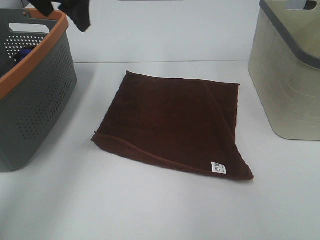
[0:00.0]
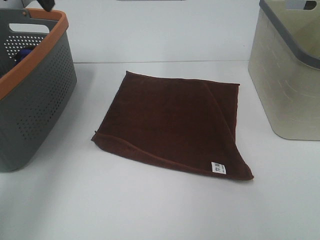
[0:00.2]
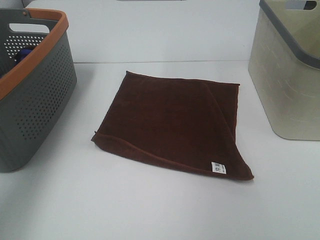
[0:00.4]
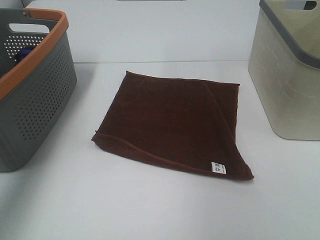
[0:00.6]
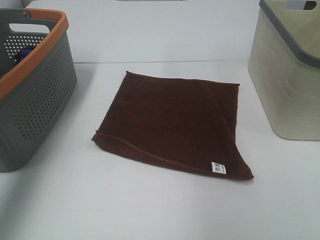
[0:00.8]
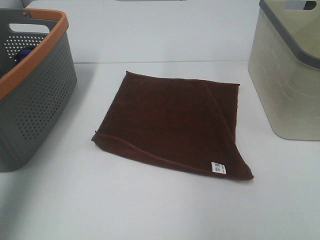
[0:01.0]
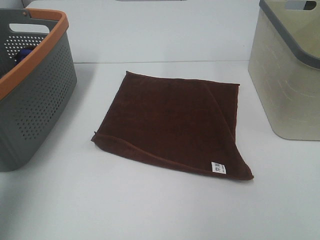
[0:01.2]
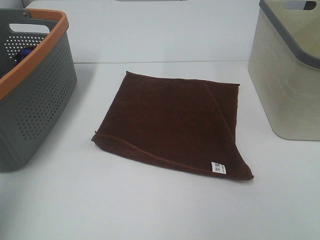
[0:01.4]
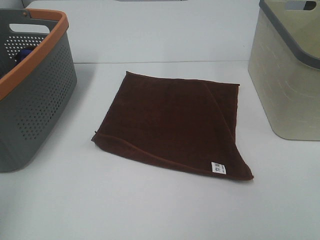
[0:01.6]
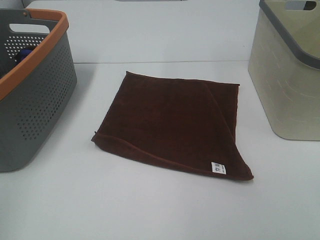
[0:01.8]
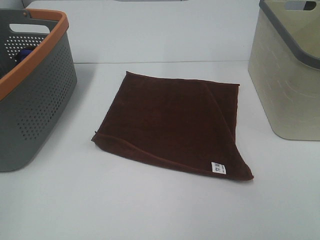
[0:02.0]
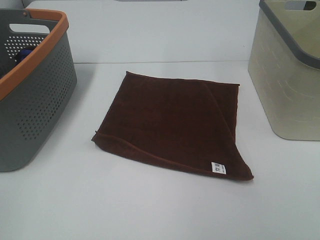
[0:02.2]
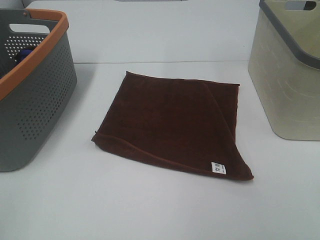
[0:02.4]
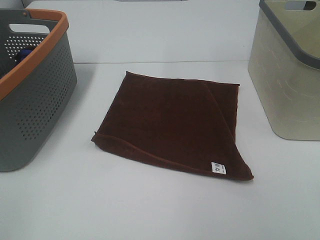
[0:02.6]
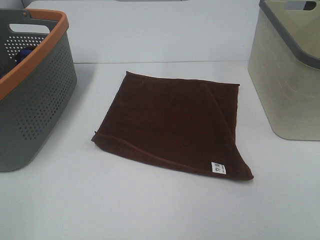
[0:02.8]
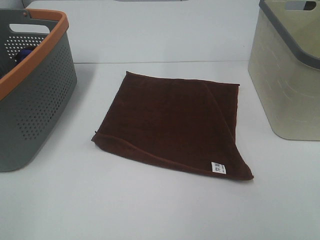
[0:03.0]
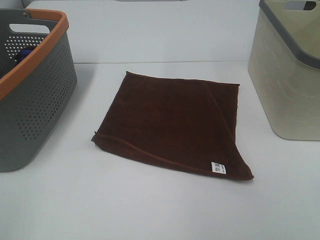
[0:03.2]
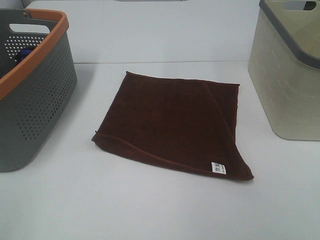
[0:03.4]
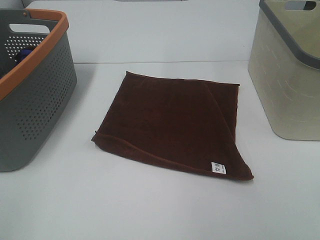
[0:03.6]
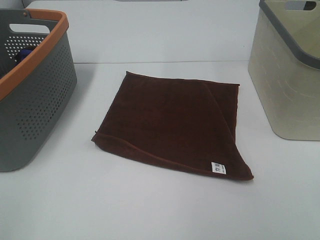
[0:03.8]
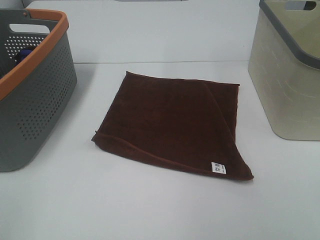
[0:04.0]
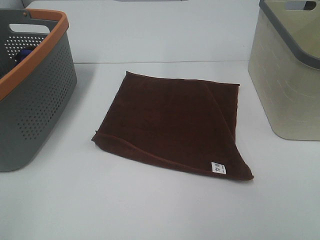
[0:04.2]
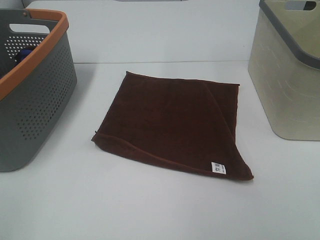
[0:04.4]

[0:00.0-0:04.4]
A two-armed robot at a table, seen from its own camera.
Task of the whole recording: Remove the towel and place it.
0:00.0 to 0:01.4: The left gripper goes about 30 cm backward and to the left.
0:01.4 to 0:03.0: The left gripper travels backward and downward by approximately 15 cm.
0:03.0 to 0:04.4: Both grippers stay about where they are.

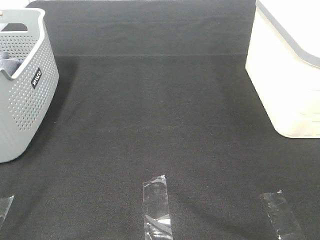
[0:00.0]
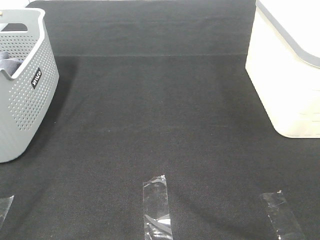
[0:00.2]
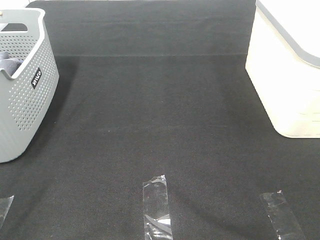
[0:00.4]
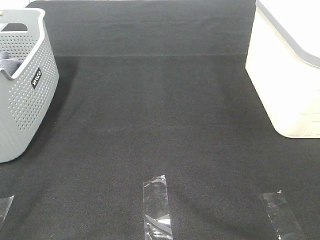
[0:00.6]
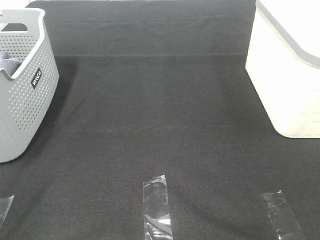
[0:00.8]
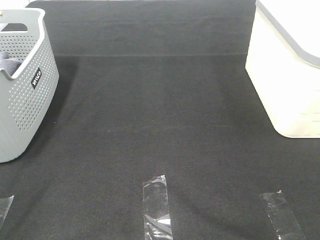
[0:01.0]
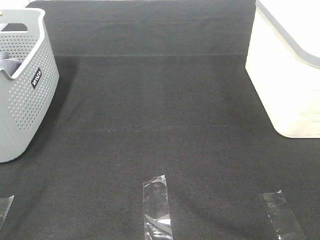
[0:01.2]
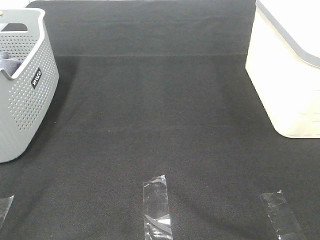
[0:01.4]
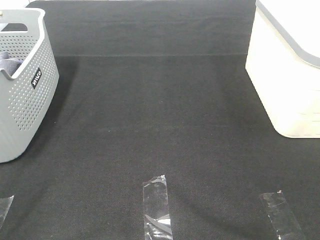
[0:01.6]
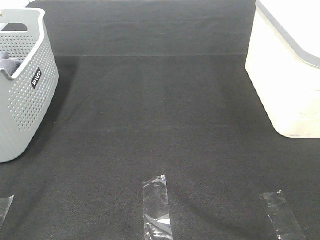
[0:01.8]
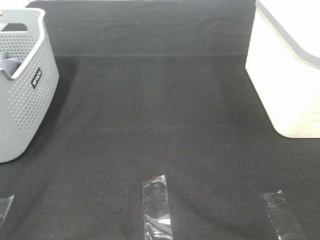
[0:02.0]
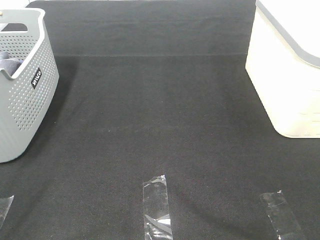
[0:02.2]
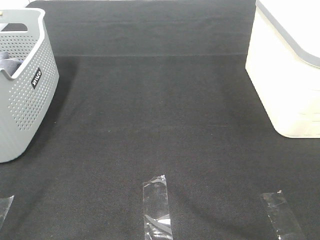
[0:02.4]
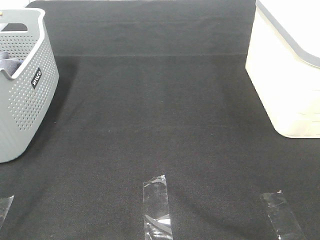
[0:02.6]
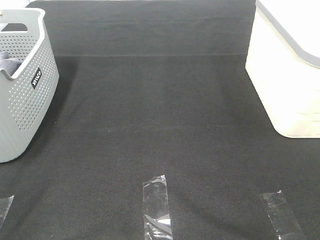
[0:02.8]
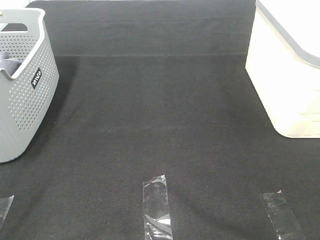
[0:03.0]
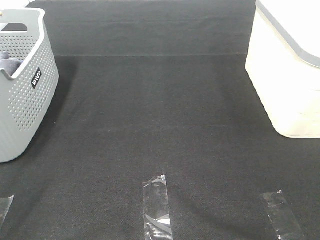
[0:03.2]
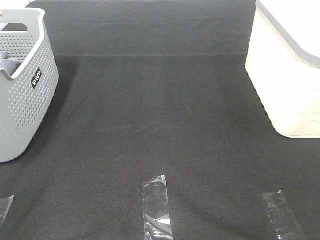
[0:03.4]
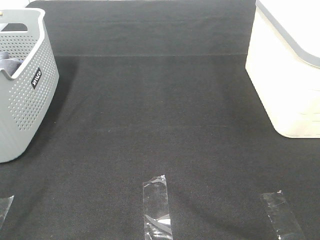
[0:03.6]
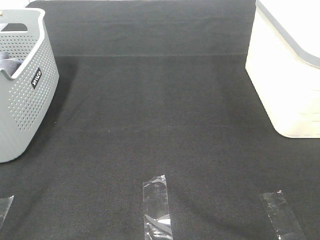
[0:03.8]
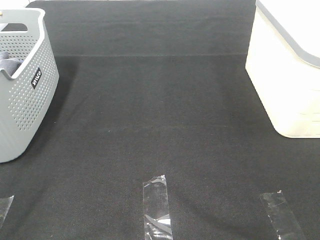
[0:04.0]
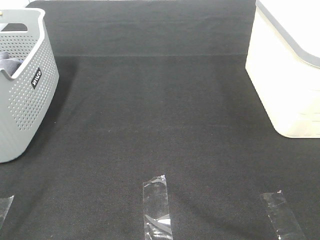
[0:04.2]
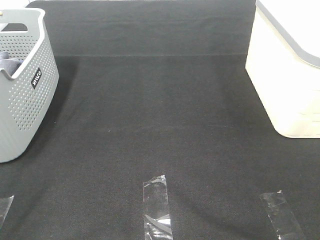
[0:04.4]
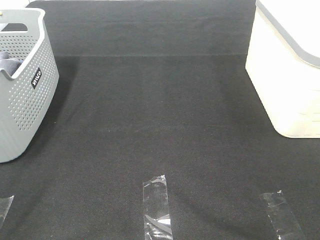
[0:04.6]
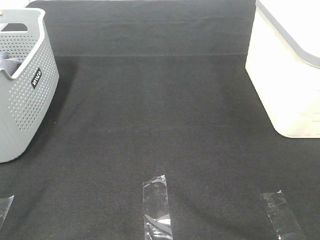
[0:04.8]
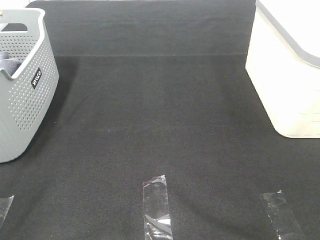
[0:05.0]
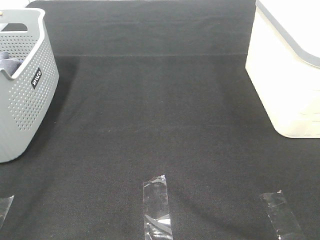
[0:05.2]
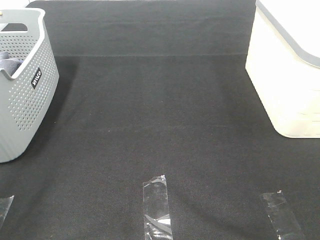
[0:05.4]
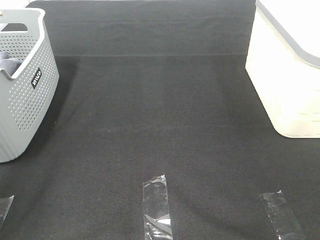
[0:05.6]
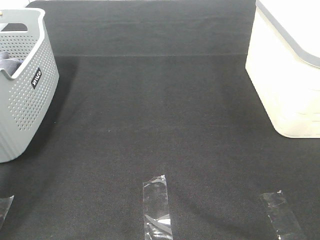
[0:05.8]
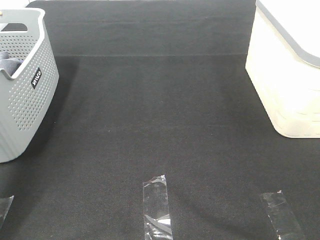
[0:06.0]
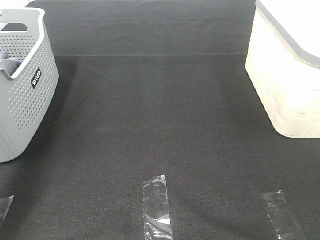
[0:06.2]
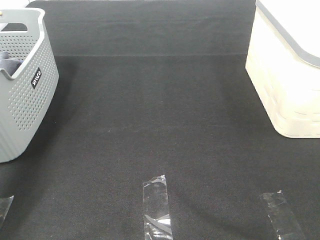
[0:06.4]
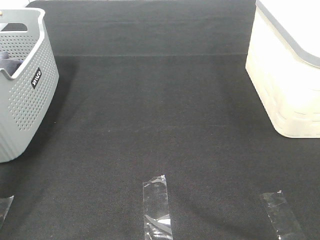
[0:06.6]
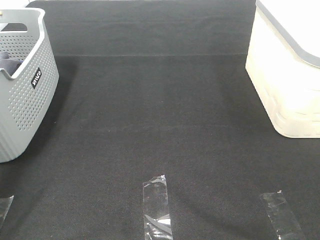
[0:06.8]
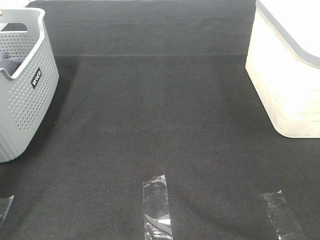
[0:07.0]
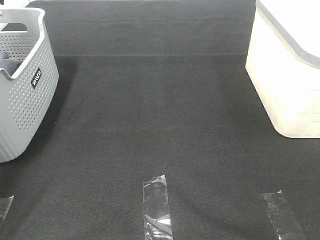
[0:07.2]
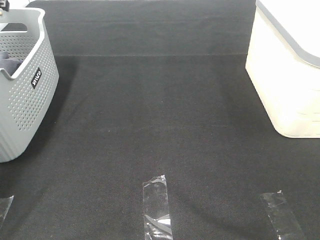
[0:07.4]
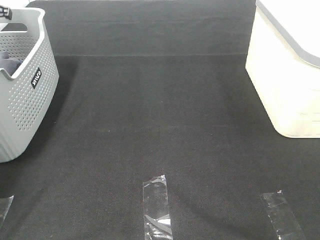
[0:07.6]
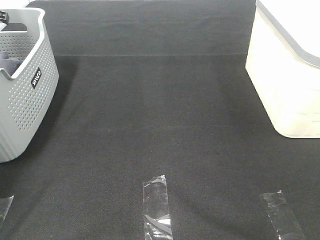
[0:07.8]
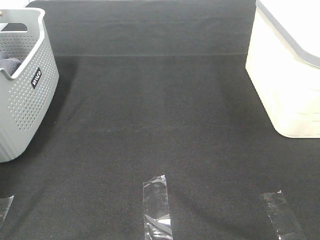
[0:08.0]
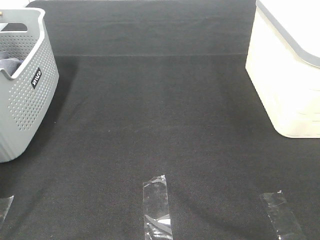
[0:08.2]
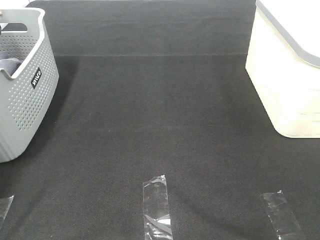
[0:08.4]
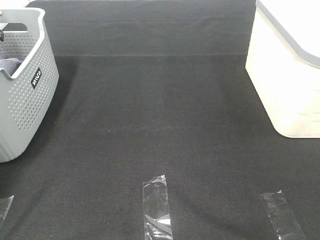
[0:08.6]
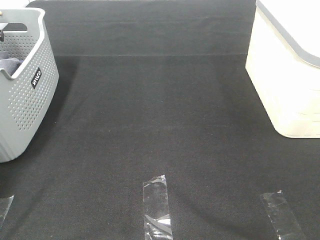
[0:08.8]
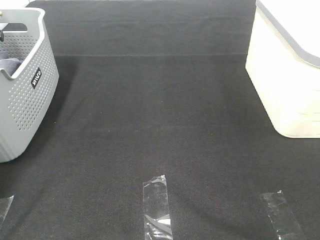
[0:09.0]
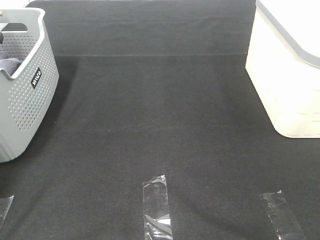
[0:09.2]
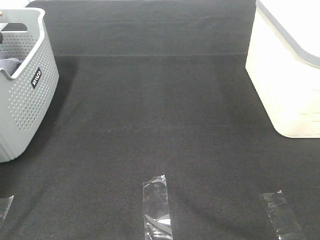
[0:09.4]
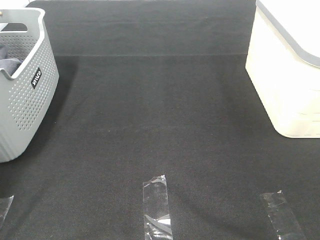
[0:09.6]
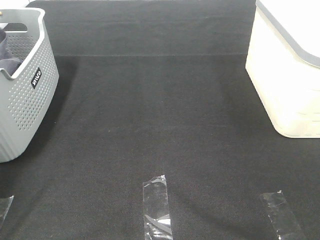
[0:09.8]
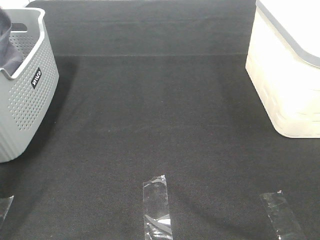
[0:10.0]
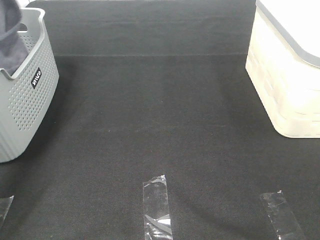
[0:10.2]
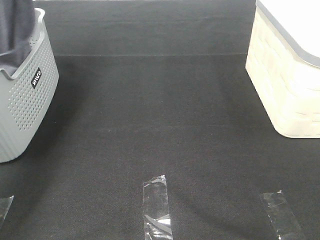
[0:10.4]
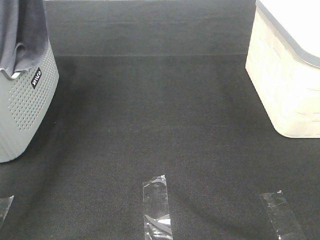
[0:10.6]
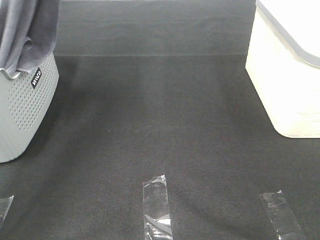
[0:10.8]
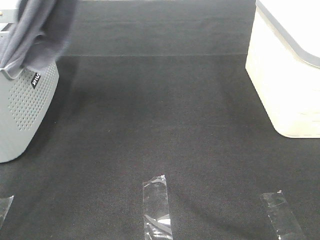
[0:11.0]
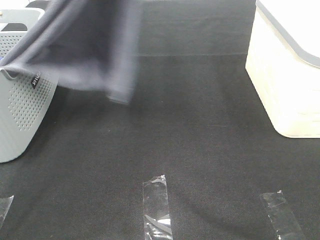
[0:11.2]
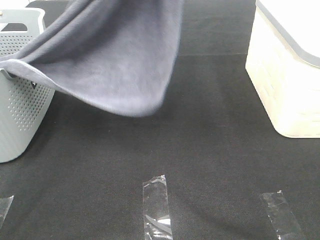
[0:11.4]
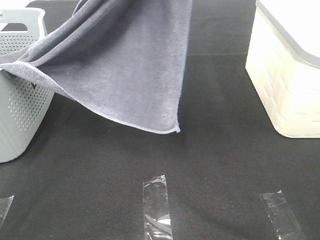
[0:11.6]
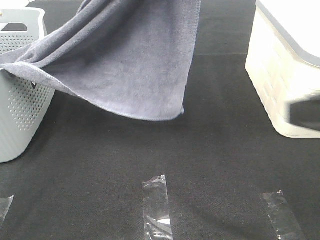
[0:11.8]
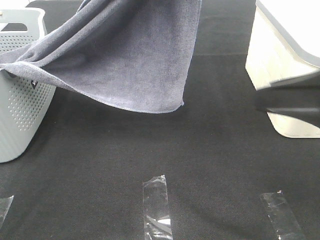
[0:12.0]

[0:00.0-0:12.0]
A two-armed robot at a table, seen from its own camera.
Task of the whole recording: Remove the towel and place it.
0:00.0 to 0:04.4: Both grippers stay about where they are.
0:04.4 to 0:06.0: The left gripper travels forward by some 25 cm.
0:06.0 to 0:07.6: The left gripper is displaced forward by about 25 cm.
0:07.6 to 0:09.0: The left gripper changes place by approximately 5 cm, and closes up.
0:09.0 to 0:10.4: The left gripper travels upward and to the right by approximately 25 cm.
0:10.4 to 0:12.0: The right gripper moves forward, about 15 cm. Meanwhile the left gripper heads to the right and backward, covering roughly 25 cm.

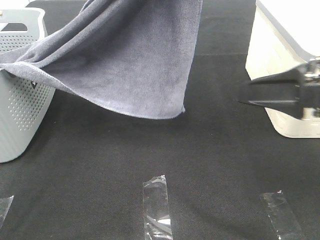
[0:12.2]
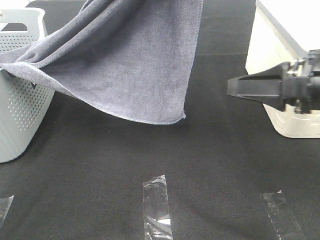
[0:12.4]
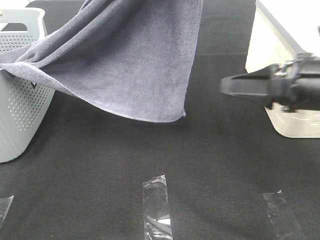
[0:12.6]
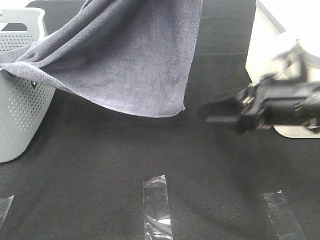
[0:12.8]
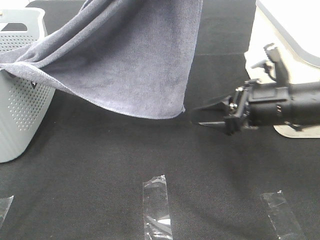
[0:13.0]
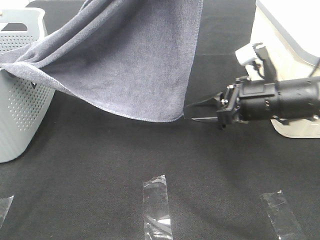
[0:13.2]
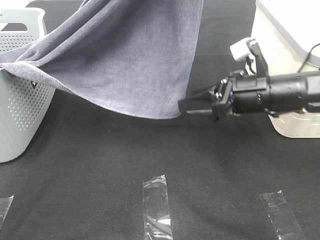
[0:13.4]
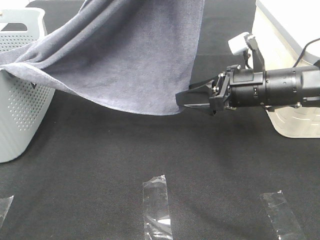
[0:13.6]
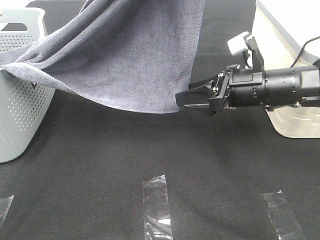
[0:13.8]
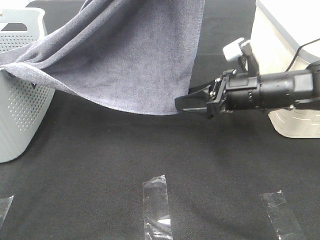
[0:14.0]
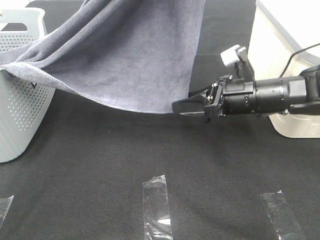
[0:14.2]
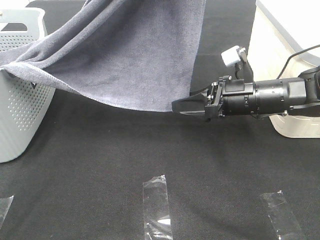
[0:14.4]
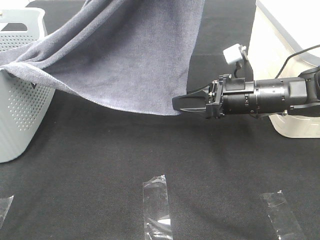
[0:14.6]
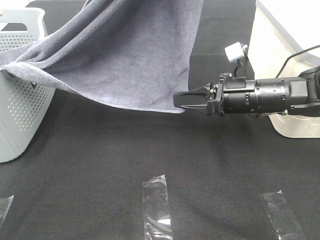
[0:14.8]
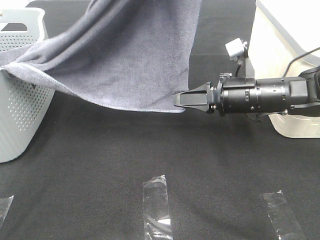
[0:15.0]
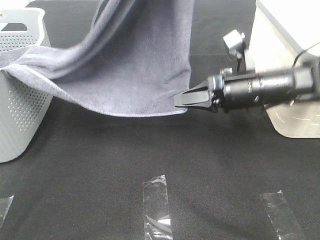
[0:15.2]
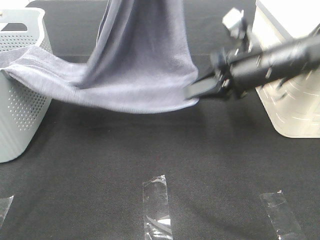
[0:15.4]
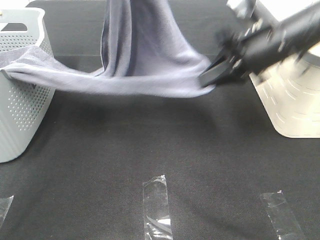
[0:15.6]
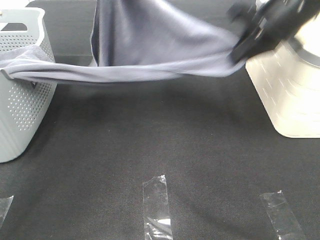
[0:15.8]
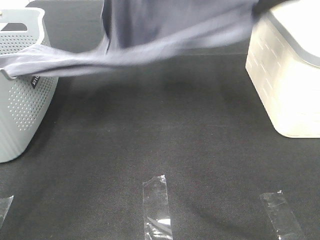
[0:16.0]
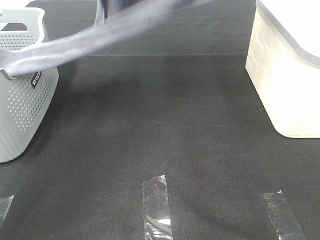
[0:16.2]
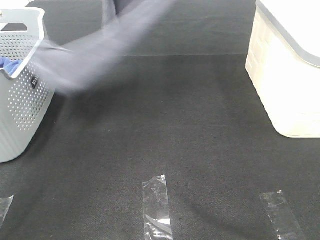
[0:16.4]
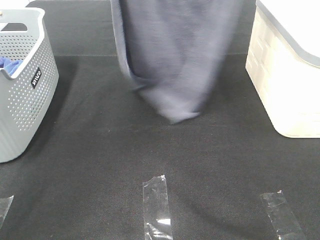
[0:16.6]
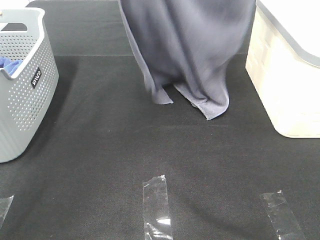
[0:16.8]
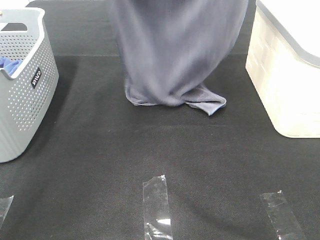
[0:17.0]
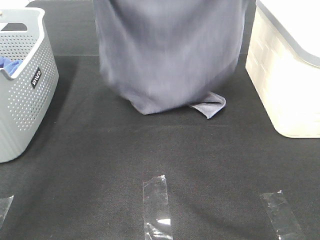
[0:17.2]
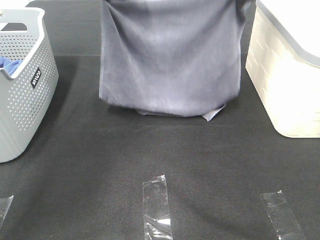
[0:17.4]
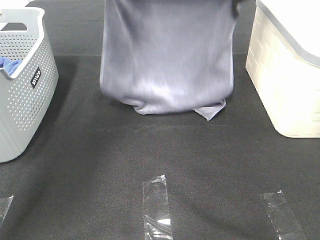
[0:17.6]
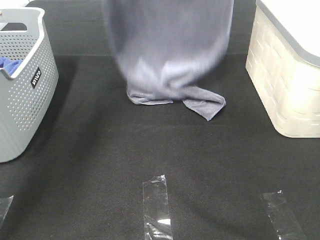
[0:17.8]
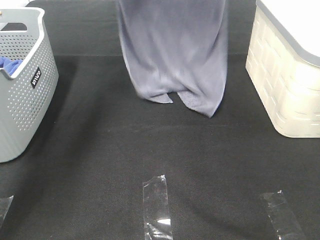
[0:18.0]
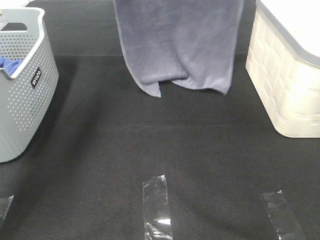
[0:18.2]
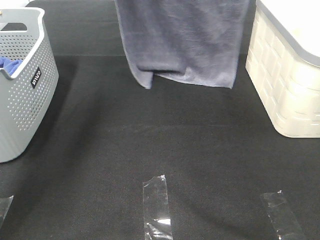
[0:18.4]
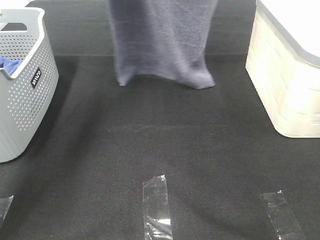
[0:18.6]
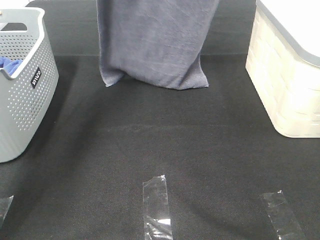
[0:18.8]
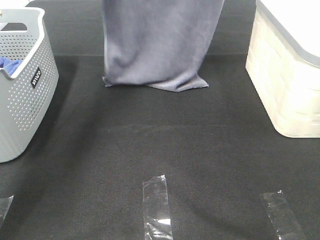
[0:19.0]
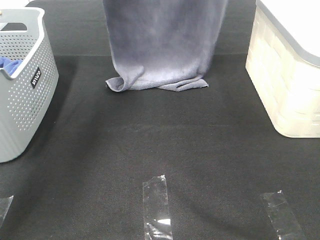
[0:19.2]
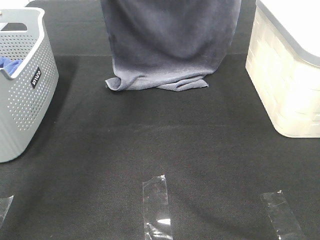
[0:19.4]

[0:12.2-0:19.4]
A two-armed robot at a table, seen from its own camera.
Task of the whole recording: Remove the towel and place it.
Step, 0:13.8 to 0:18.0: Left hand: spread the grey towel flat on the table.
Step, 0:13.8 to 0:18.0: Right hand: spread the grey towel flat on the table.
0:12.2 to 0:13.6: The right gripper travels forward, downward and to the left by about 15 cm.
0:13.6 to 0:15.0: The right gripper closes.
0:15.0 to 0:16.6: The left gripper heads forward, to the left and upward, covering approximately 15 cm, while the right gripper is displaced upward by about 40 cm.
0:16.6 to 0:18.0: The left gripper is displaced downward and forward by about 15 cm, while the right gripper moves forward and downward, roughly 15 cm.
0:18.0 to 0:19.4: The left gripper goes roughly 5 cm backward.
